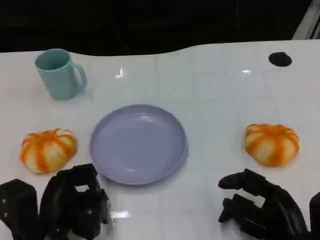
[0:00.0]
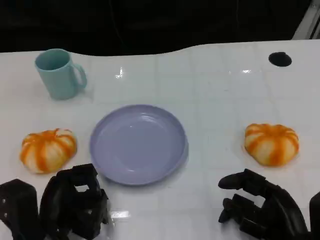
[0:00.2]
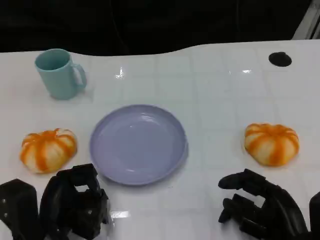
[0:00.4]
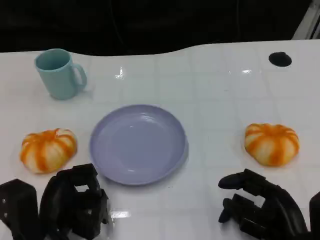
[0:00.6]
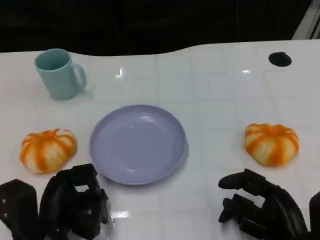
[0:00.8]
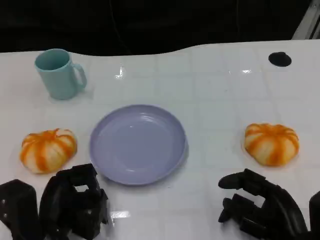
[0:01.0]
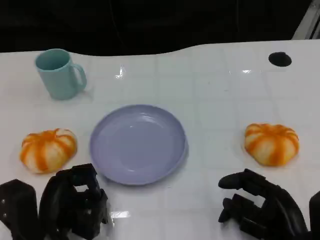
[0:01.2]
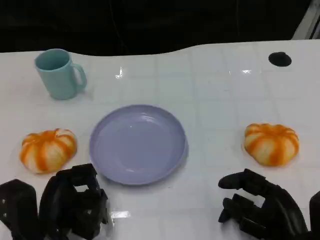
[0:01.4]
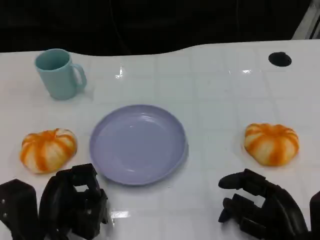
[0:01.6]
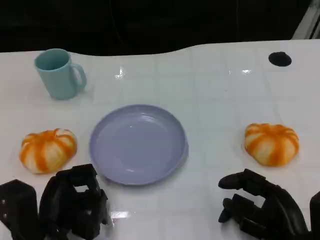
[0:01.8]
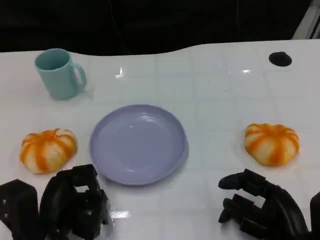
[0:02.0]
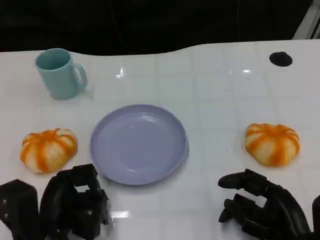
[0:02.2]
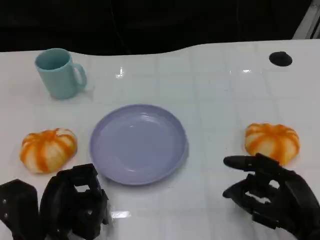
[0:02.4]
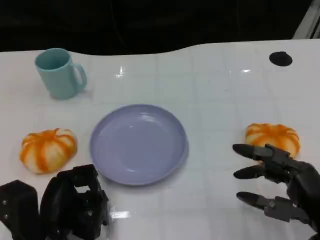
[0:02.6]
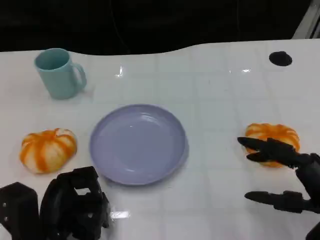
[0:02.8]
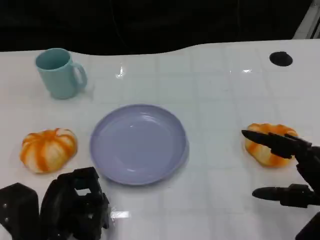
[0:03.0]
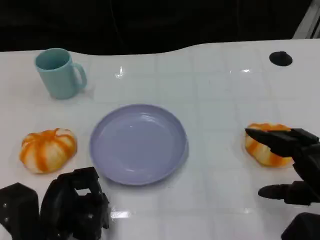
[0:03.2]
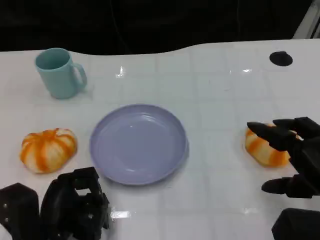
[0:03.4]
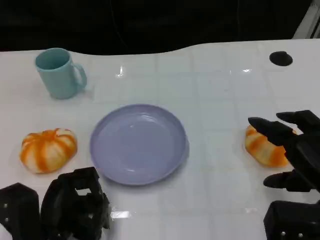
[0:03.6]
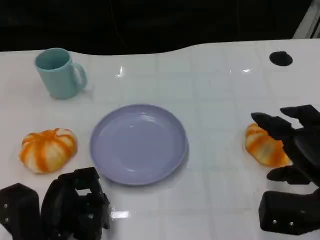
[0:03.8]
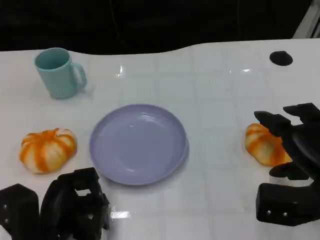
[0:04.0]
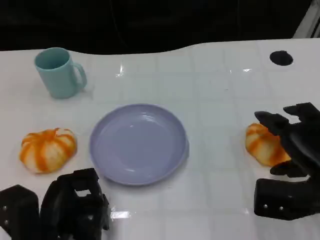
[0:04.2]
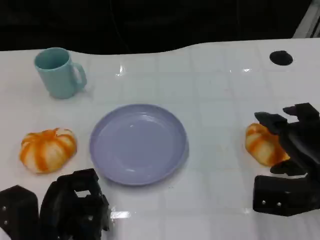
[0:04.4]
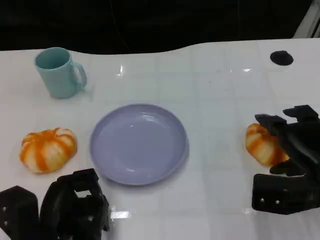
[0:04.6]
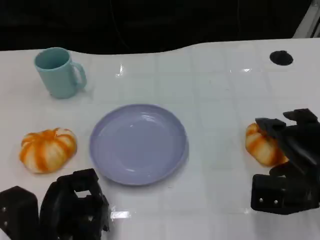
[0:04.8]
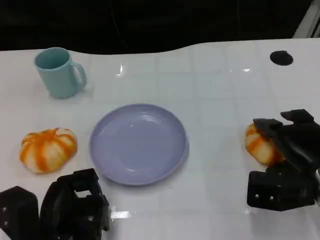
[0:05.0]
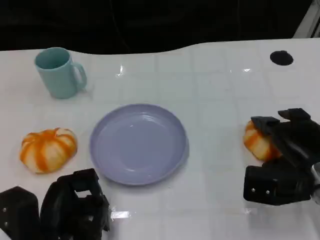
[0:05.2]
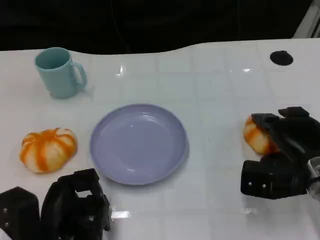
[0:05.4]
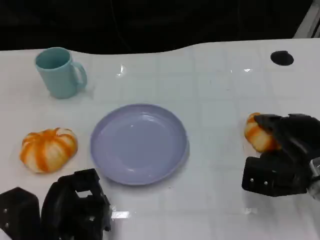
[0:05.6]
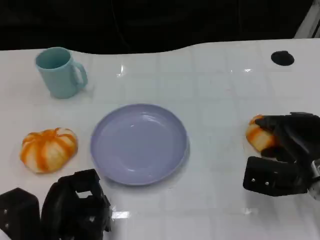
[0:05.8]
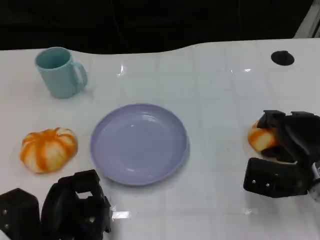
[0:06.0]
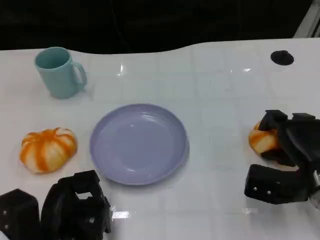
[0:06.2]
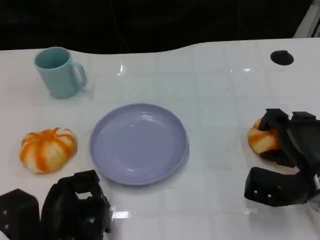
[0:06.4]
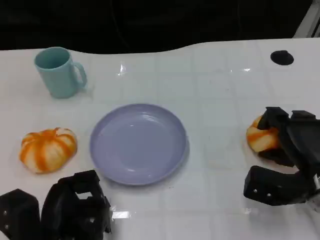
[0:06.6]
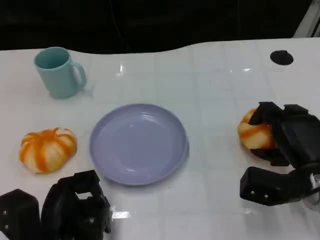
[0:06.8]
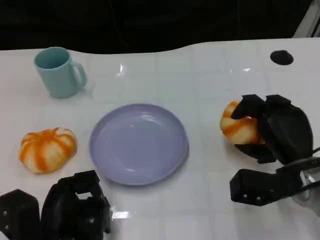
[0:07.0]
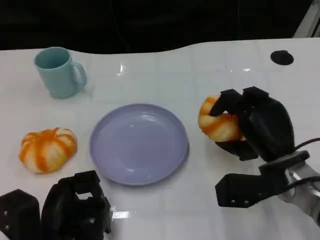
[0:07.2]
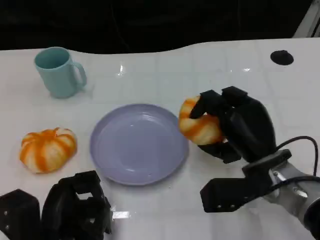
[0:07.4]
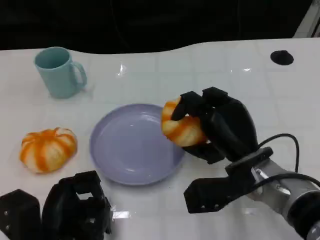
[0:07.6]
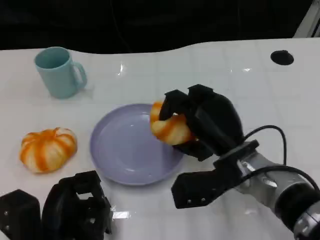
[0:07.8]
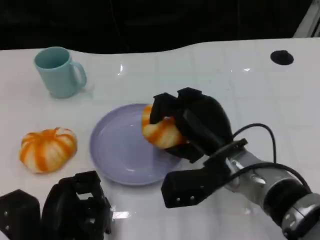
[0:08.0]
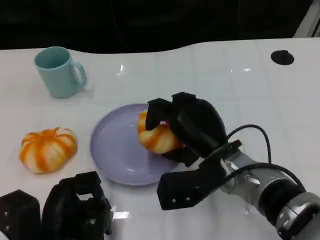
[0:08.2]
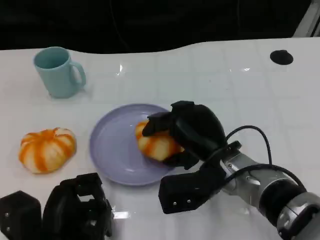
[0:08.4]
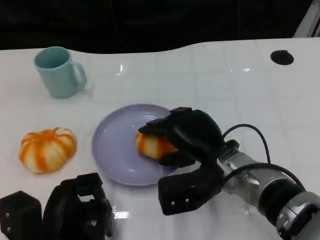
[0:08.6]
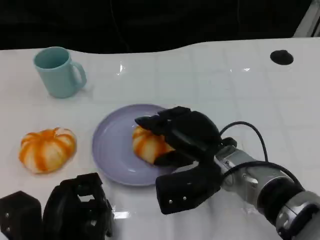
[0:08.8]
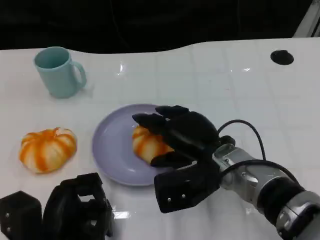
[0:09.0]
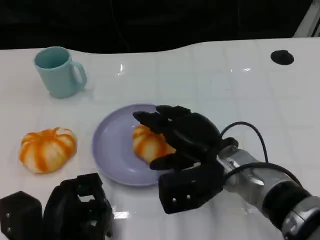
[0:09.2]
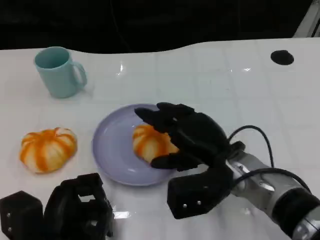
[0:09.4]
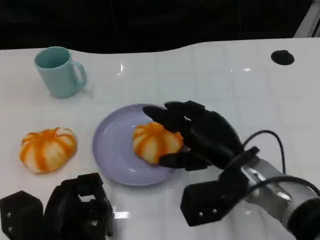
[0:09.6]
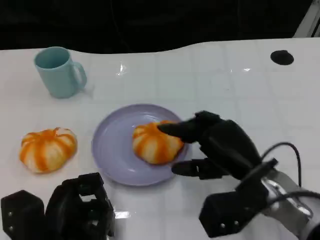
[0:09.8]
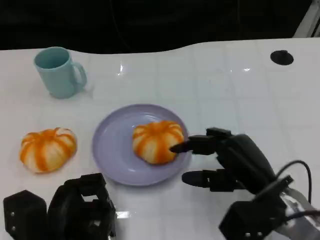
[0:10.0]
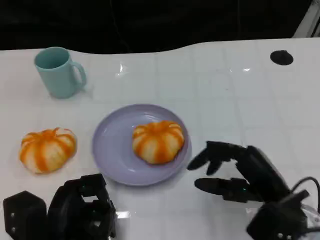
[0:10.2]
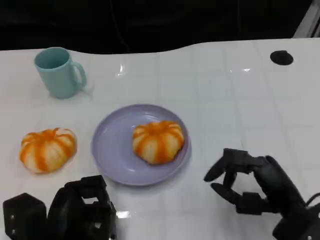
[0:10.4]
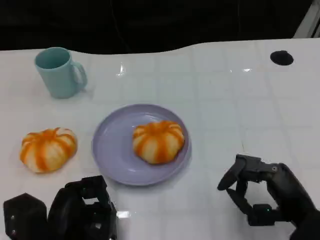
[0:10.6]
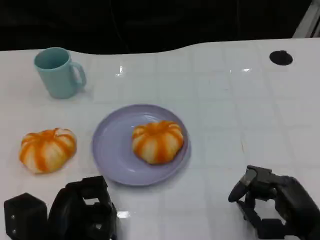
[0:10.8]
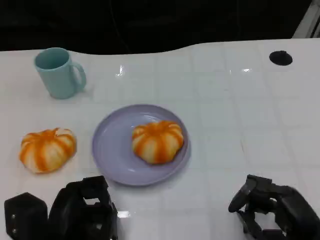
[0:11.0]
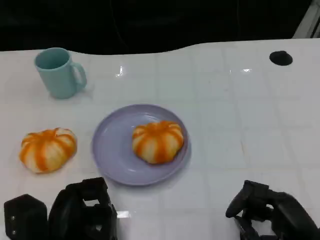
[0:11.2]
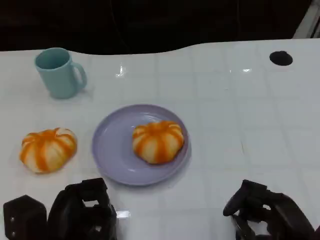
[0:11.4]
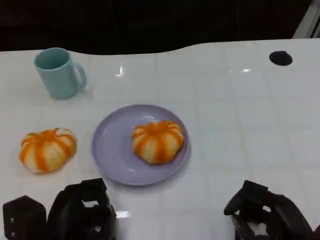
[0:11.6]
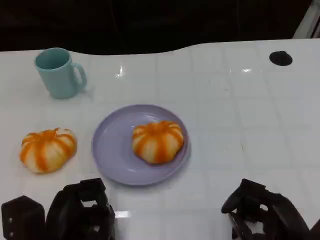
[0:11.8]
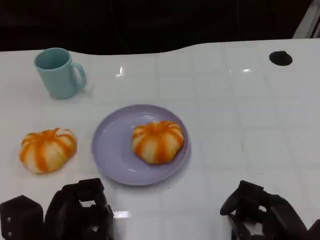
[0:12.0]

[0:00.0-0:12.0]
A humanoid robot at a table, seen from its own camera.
Task of the whole recording: Grasp the bread from the table and place it into the plate.
0:00.0 to 0:01.6: Both hands stay about where they are.
0:01.6 to 0:03.0: The right hand goes approximately 5 cm upward.
0:03.0 to 0:04.4: The right hand goes roughly 5 cm forward.
0:04.4 to 0:06.0: The hands stay close to where they were, moving slightly.
0:06.0 to 0:07.6: The right hand moves to the left, roughly 10 cm.
0:09.0 to 0:10.4: The right hand heads to the right and backward, covering some 15 cm.
0:10.4 to 0:12.0: The right hand moves about 5 cm.

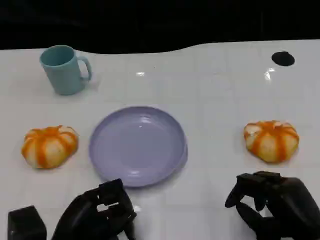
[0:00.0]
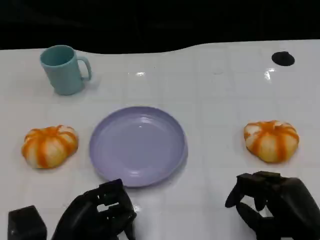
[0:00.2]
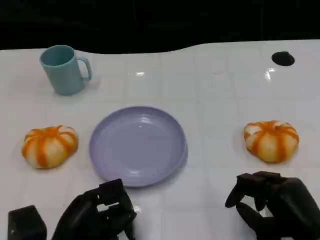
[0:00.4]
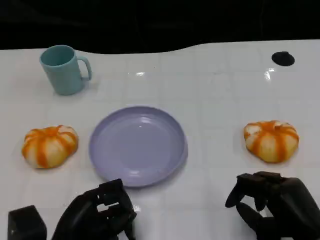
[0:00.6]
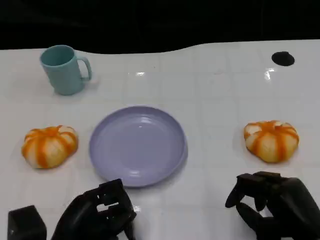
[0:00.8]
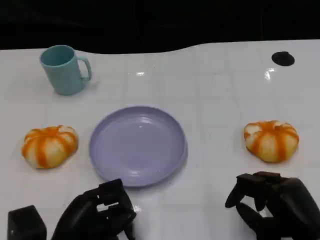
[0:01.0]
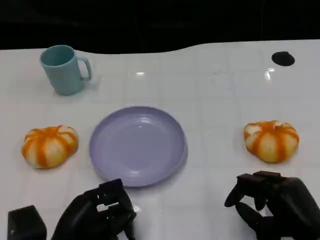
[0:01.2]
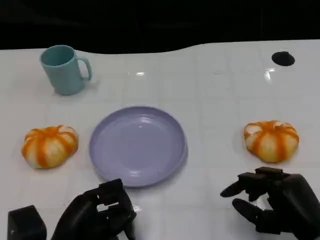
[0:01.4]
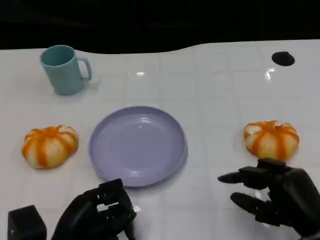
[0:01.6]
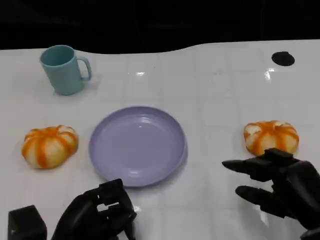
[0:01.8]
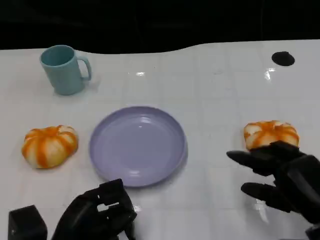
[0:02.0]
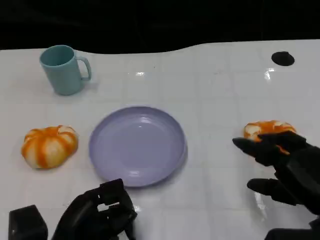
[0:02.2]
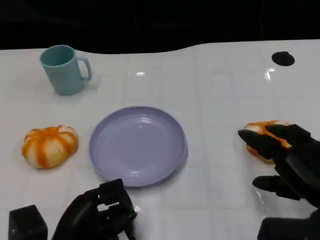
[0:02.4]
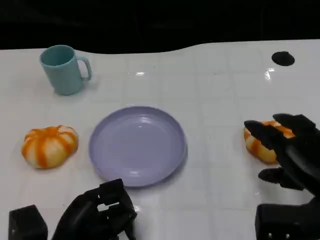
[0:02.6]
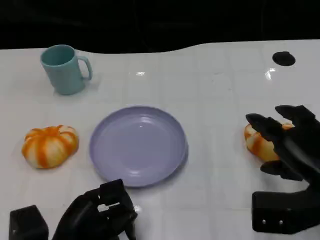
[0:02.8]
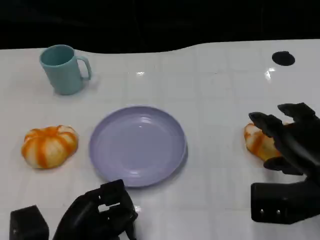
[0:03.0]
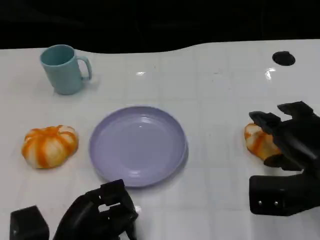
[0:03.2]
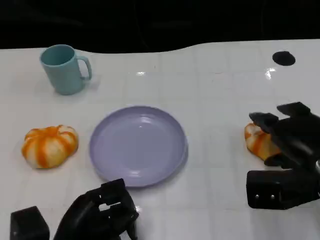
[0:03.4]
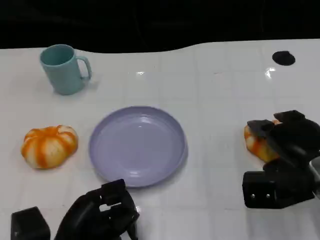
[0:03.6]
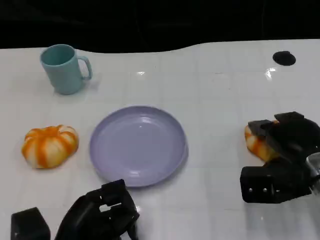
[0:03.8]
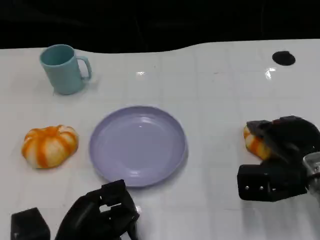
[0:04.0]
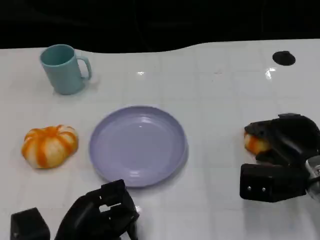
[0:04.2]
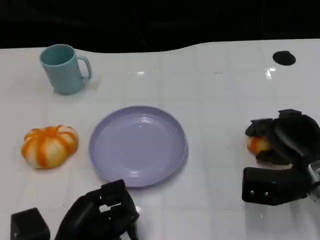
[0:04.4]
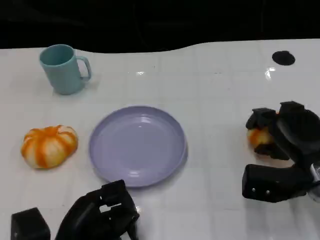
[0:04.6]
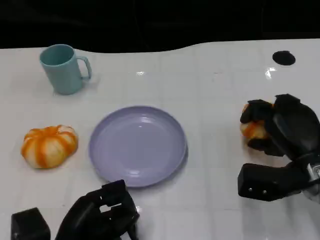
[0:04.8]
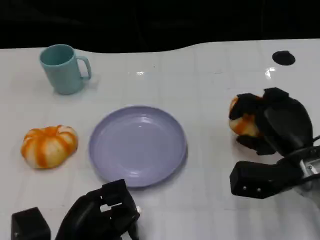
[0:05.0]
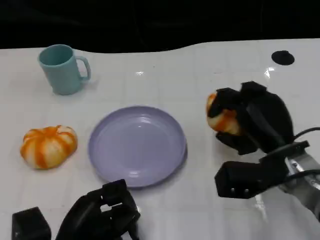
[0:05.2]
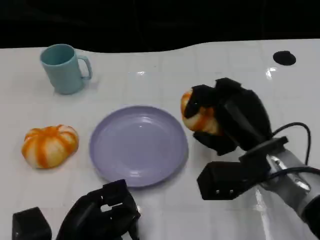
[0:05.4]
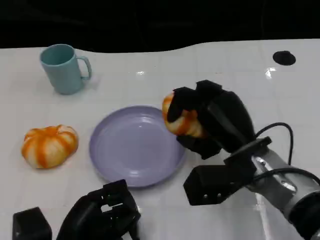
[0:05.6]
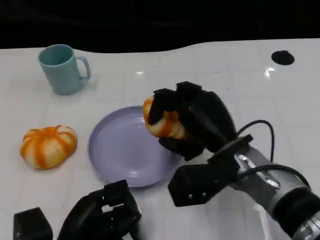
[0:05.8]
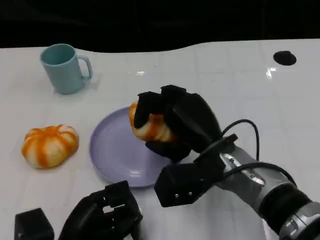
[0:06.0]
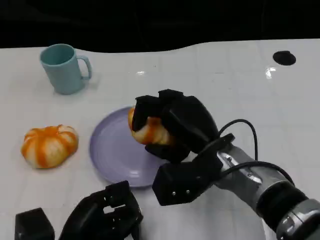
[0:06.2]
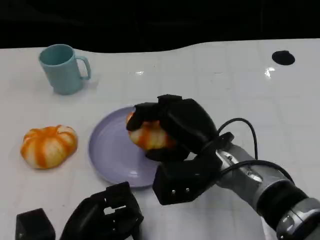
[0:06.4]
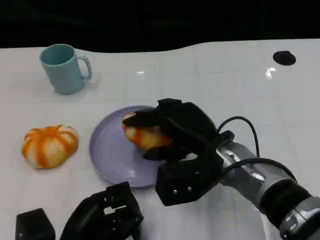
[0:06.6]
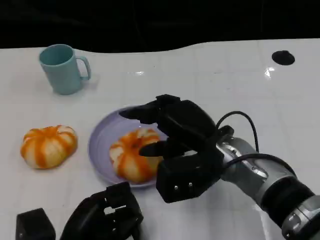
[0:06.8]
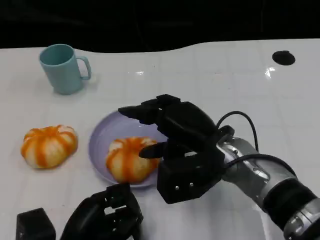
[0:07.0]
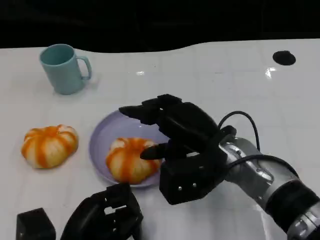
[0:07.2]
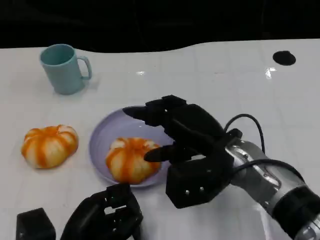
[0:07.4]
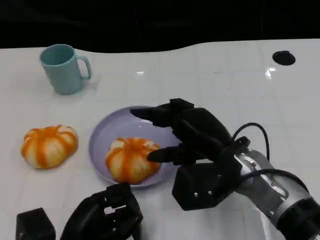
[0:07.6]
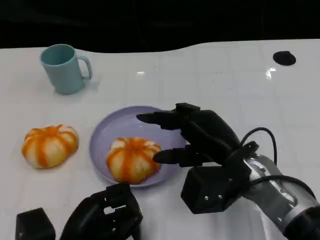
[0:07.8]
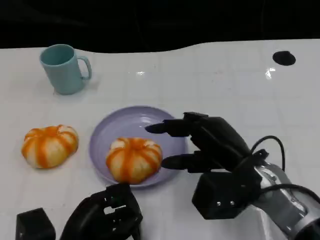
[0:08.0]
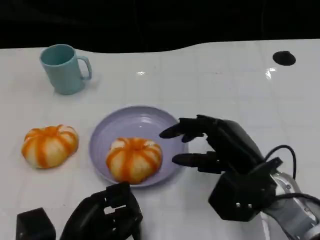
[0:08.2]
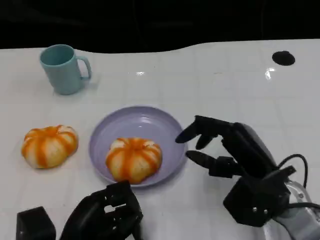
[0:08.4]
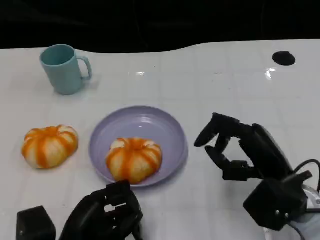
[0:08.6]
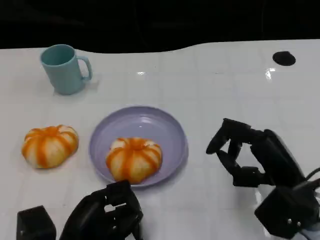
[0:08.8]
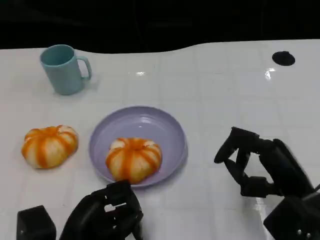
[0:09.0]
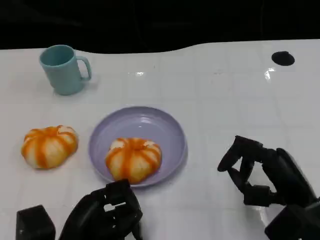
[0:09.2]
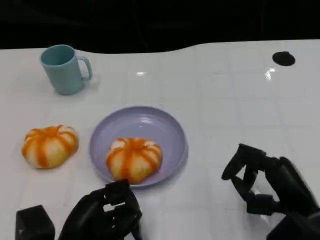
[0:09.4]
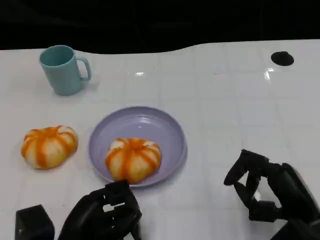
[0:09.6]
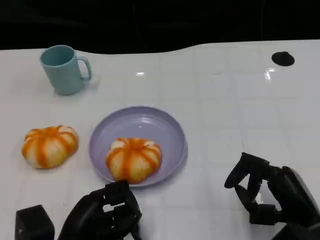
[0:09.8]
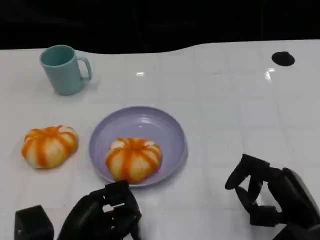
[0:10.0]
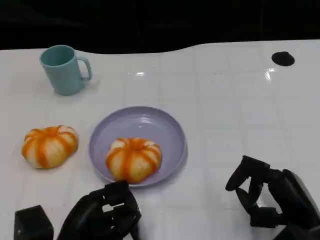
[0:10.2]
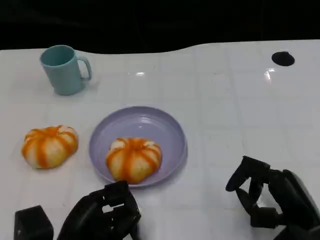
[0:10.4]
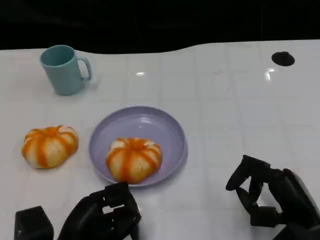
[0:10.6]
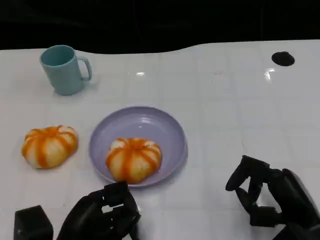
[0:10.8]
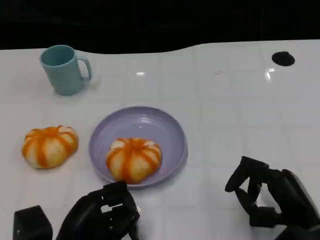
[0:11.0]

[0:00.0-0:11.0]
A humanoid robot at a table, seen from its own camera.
Task of the whole recording: Grasp the bread from the table and place it into the plate.
0:00.0 to 0:01.6: The hands make only small movements.
0:01.6 to 0:03.2: The right hand shifts approximately 5 cm forward.
0:03.2 to 0:04.8: The right hand changes place by roughly 5 cm.
0:04.8 to 0:06.2: The right hand goes some 15 cm to the left.
0:06.2 to 0:07.8: The hands move only a little.
0:07.8 to 0:09.4: The right hand shifts some 10 cm to the right and backward.
0:09.4 to 0:11.0: The hands stay close to where they were, moving slightly.
